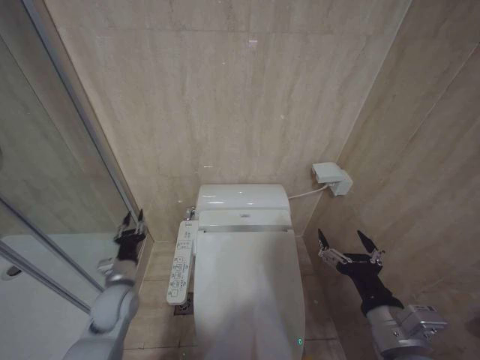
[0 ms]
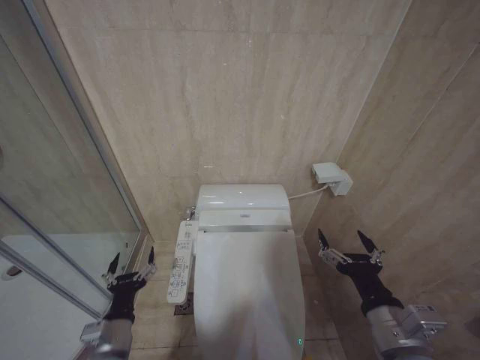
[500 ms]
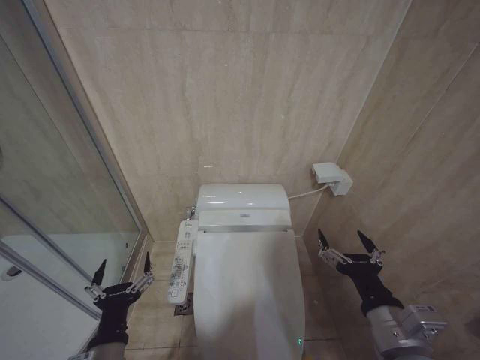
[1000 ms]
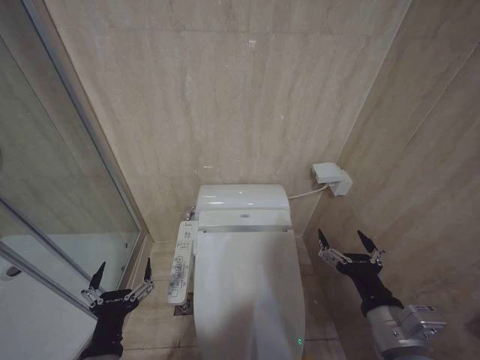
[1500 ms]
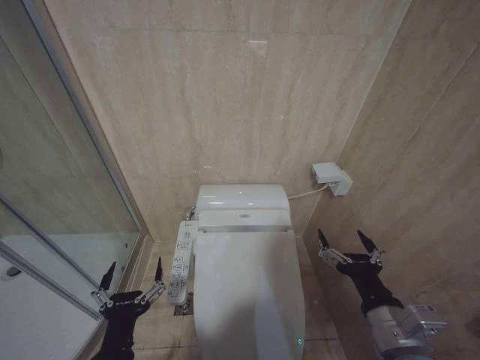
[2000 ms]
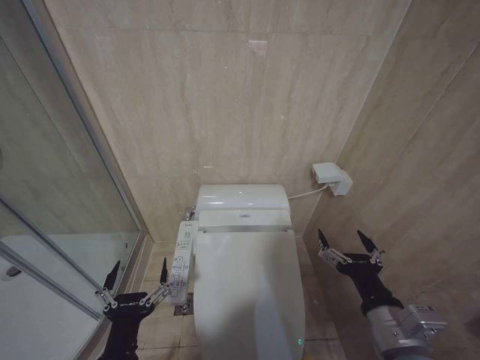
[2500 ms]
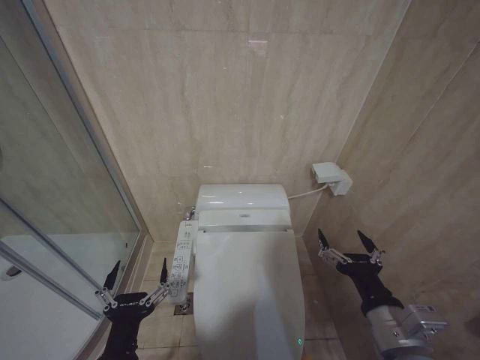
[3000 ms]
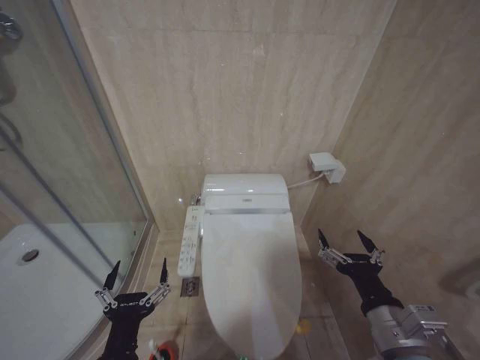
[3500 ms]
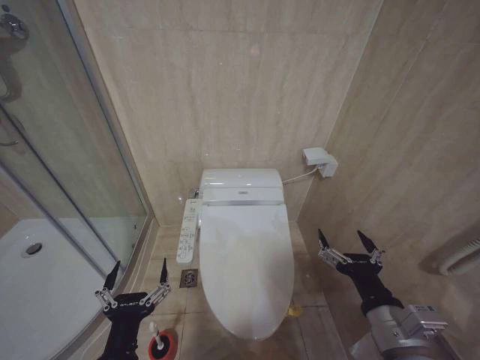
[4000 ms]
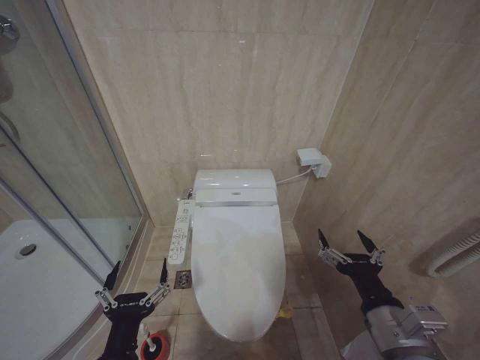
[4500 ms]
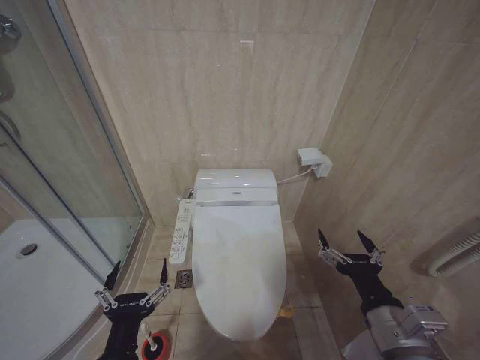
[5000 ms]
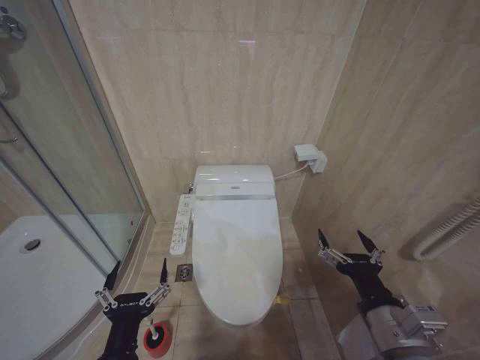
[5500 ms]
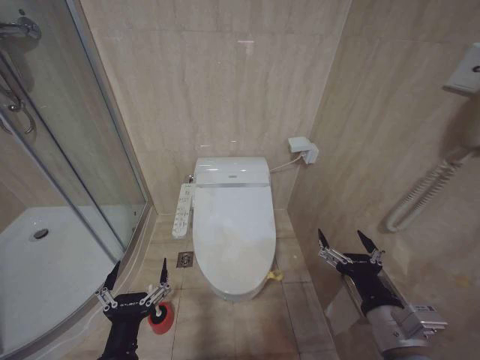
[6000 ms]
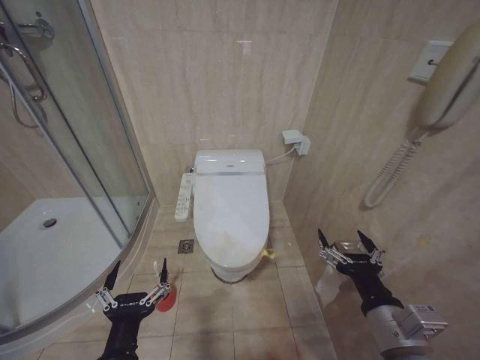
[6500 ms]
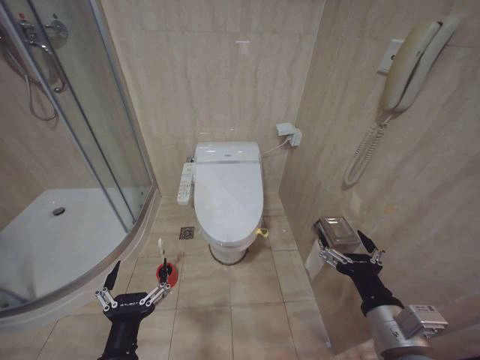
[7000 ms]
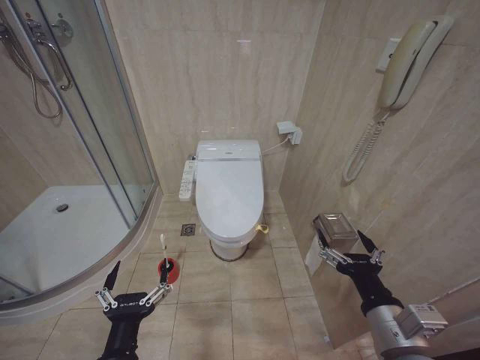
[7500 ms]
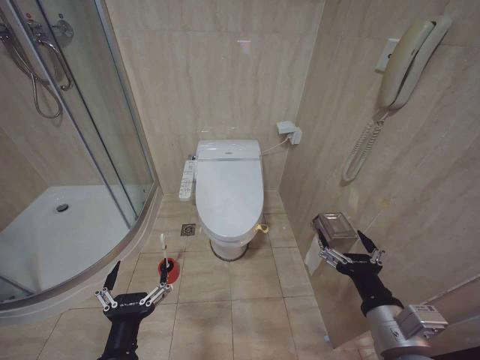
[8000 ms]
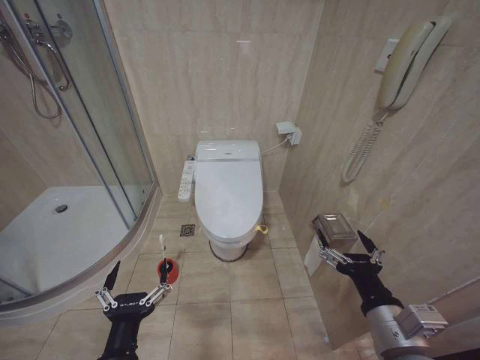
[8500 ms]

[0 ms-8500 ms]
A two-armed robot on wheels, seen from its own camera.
Task of the whole recording: Open the toilet lid, clean the toilet bowl with a toilet brush, close the toilet lid, and flush.
0 ms to 2000 ms: The left gripper is displaced backward by about 25 cm, and opens up.
2000 ms to 8500 ms: Neither gripper changes place.
